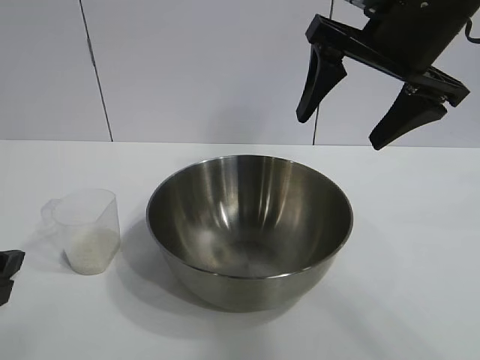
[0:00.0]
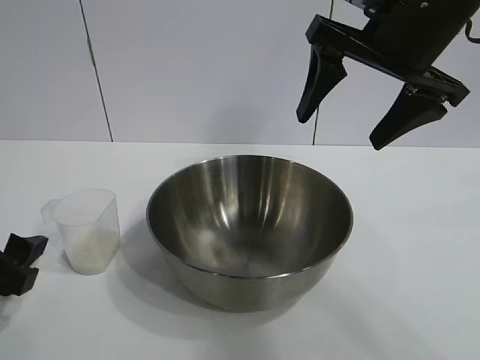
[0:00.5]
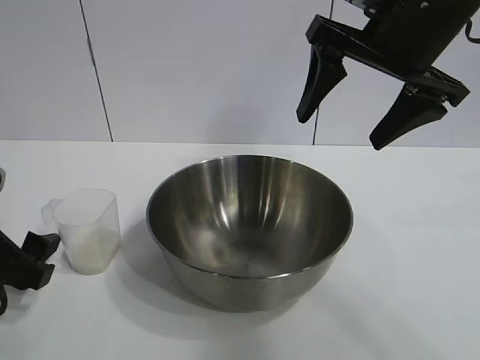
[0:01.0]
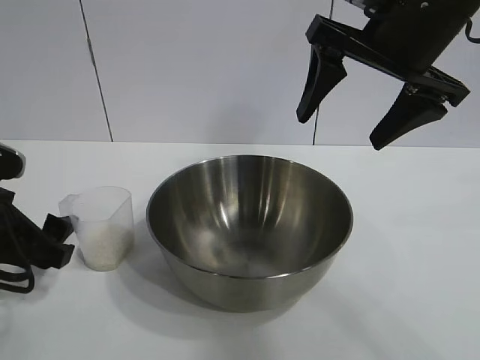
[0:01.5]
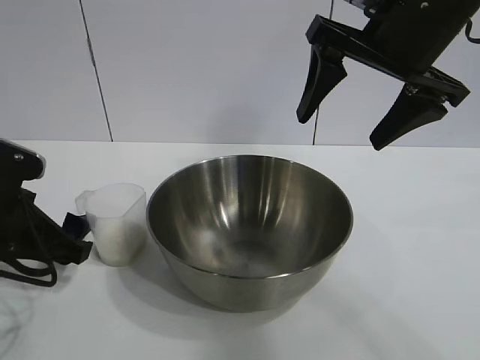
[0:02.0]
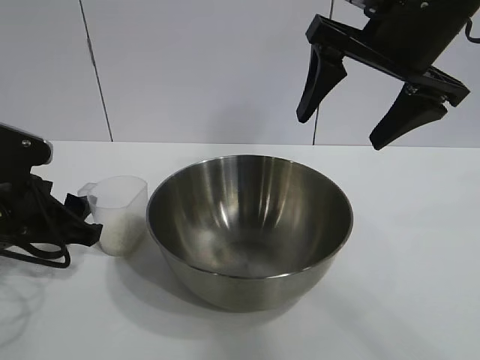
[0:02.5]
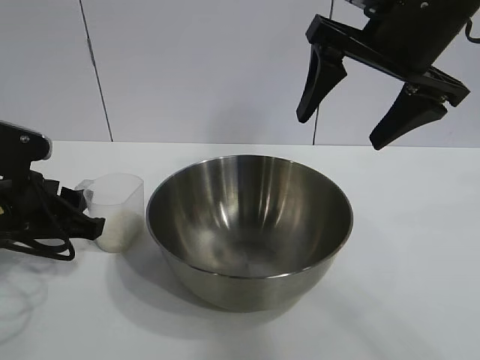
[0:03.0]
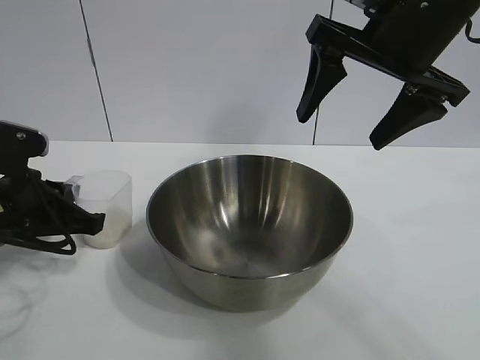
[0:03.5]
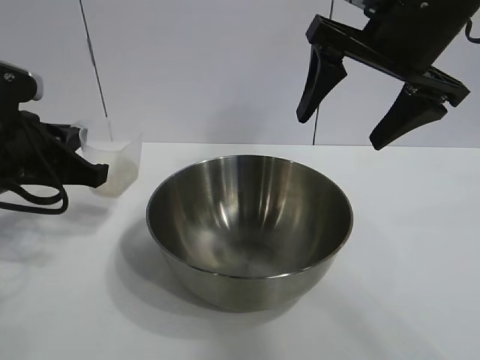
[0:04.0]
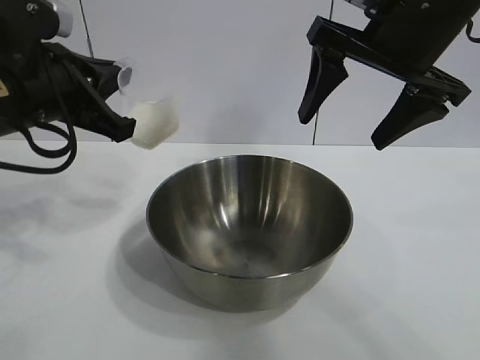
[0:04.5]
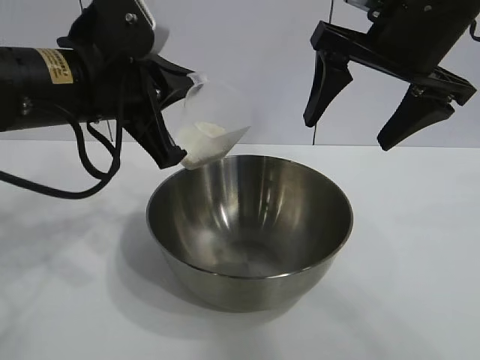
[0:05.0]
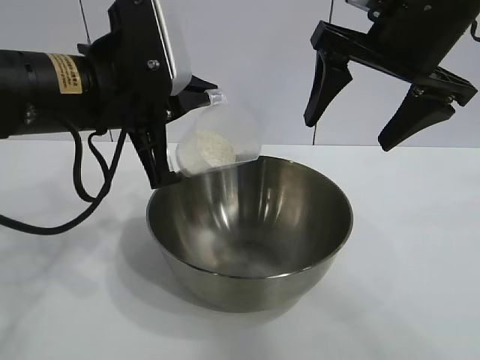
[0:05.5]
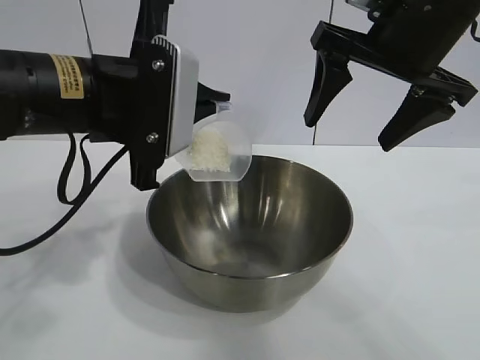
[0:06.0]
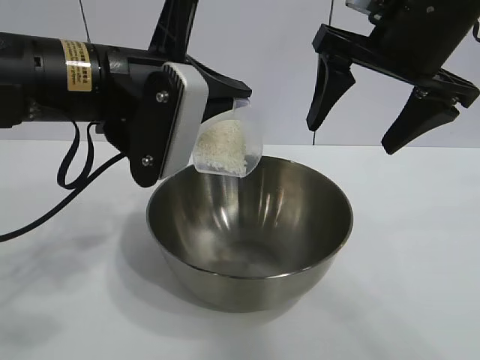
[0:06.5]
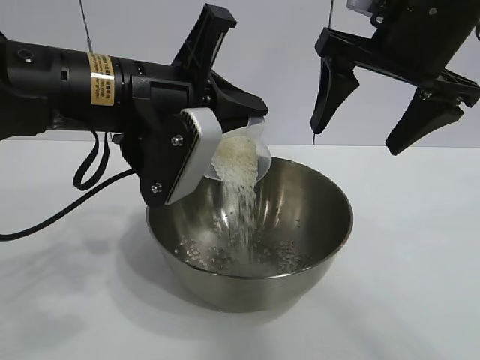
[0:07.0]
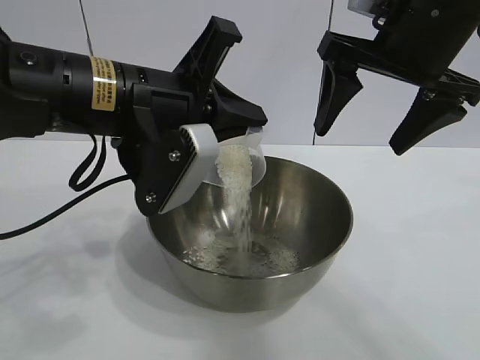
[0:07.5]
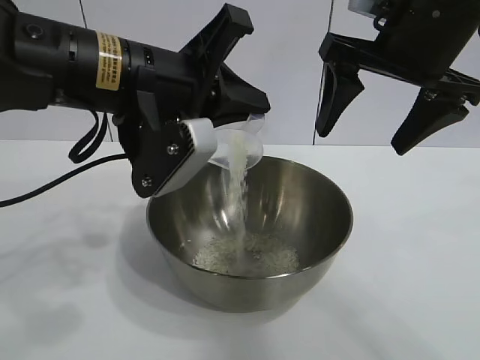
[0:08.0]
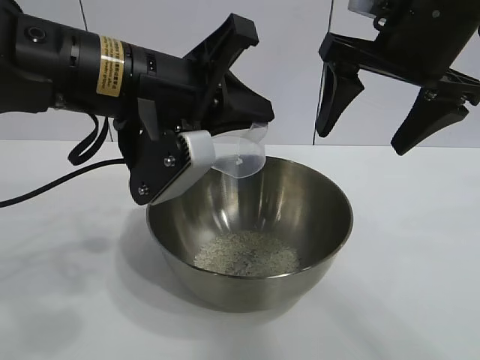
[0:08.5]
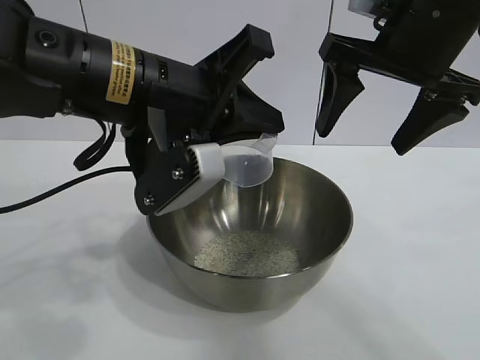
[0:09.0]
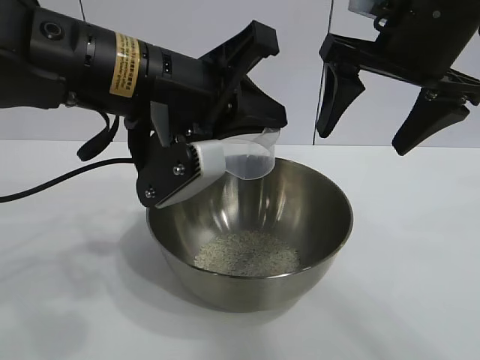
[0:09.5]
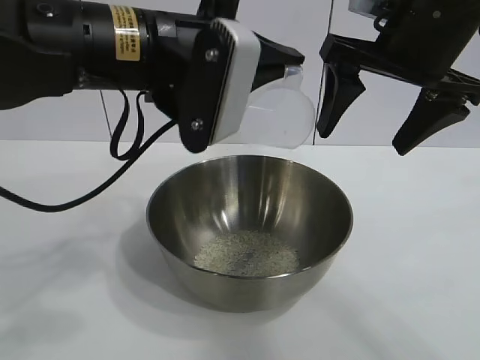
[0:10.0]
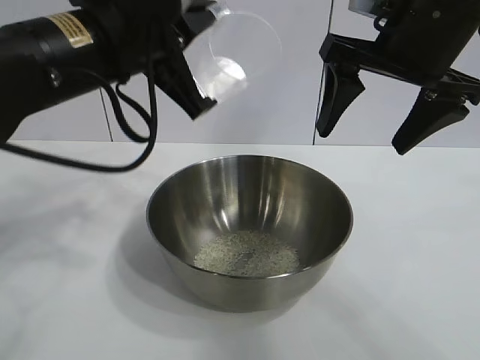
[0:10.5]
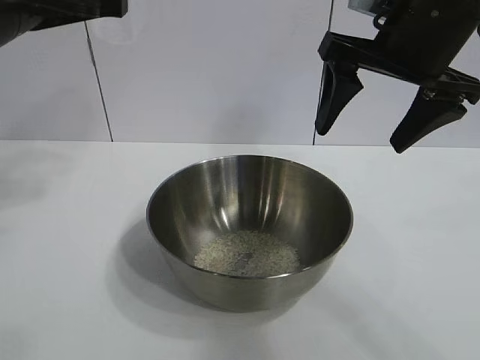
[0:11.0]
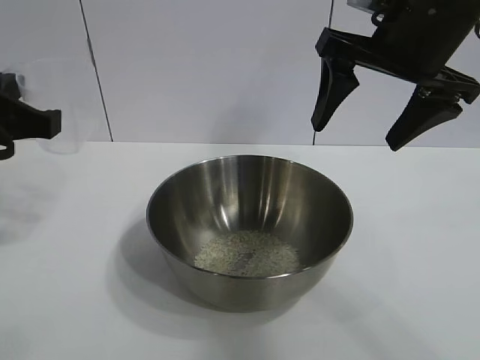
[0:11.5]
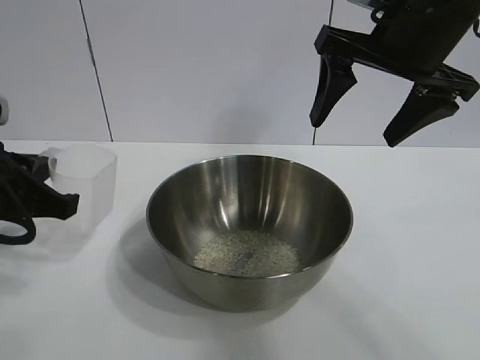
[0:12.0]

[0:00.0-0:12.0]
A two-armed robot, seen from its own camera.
Task of the whole recording: the right gripper grasp the rice container and place it in the center of the table, the left gripper grasp the rice scoop and pour the rice into the rice container.
Step, 0:00.0 to 0:03.0: Grasp the cup with rice in it with left gripper.
Step, 0:03.5 to 0:08.5: Pour the rice from the cup into the bowl with the left gripper.

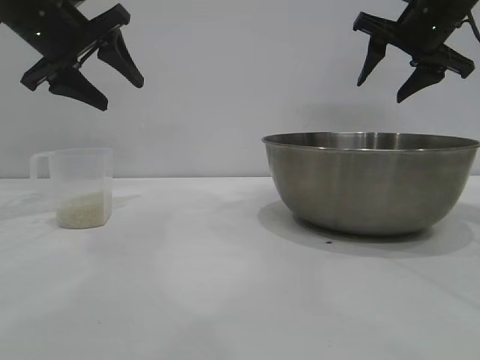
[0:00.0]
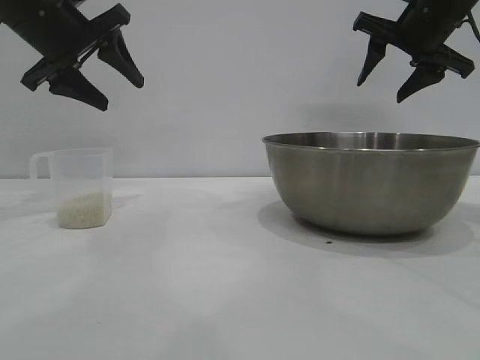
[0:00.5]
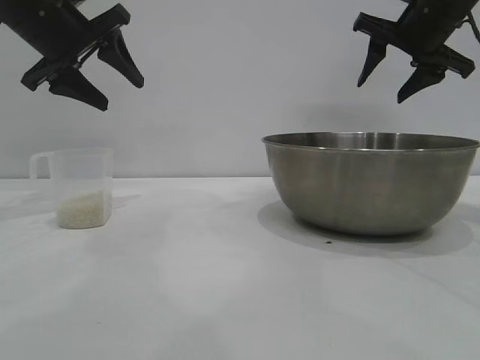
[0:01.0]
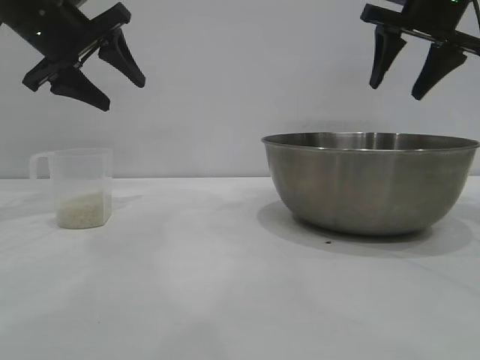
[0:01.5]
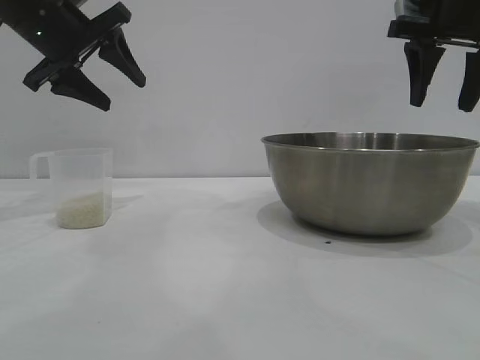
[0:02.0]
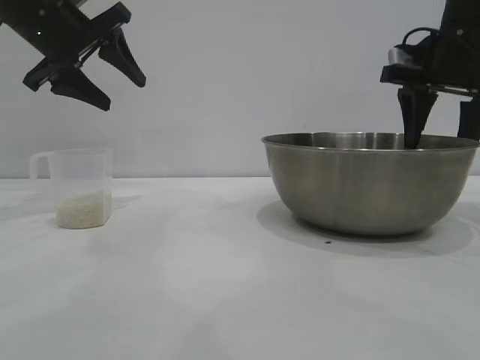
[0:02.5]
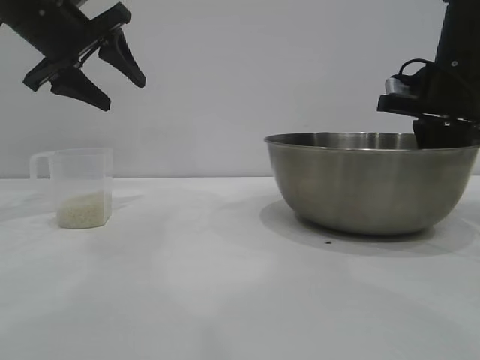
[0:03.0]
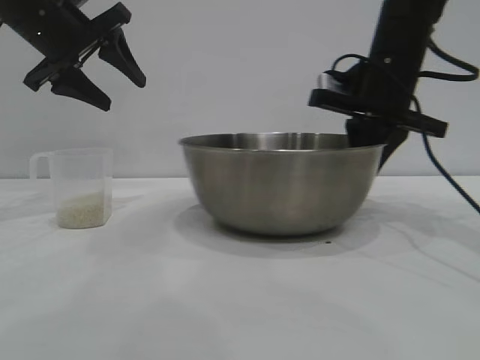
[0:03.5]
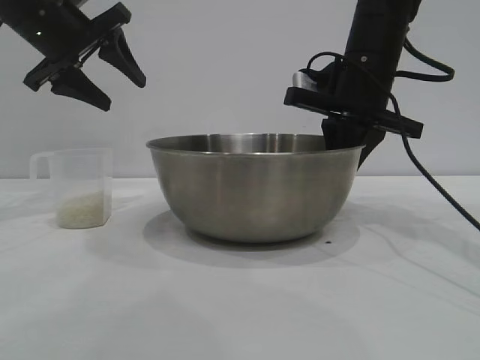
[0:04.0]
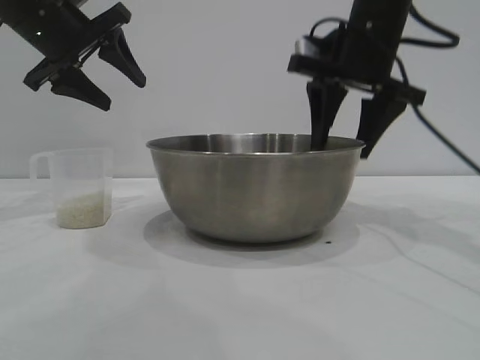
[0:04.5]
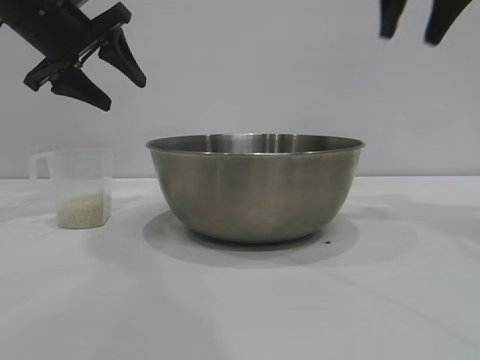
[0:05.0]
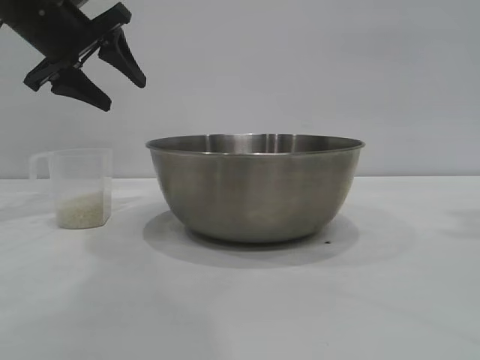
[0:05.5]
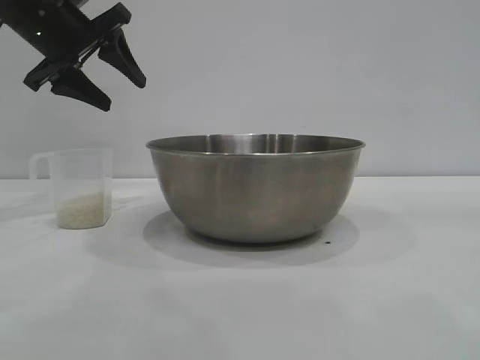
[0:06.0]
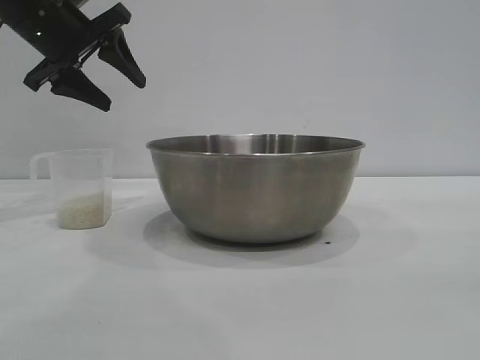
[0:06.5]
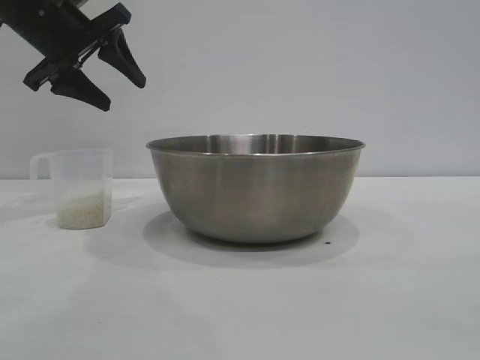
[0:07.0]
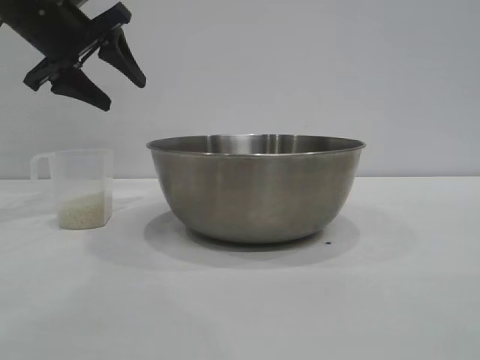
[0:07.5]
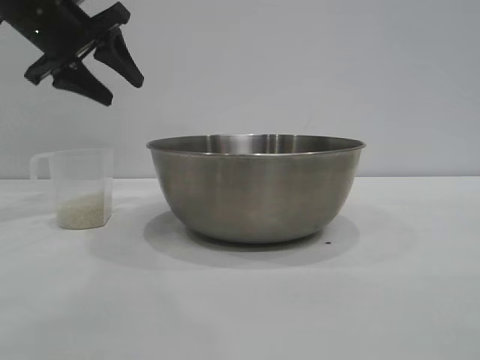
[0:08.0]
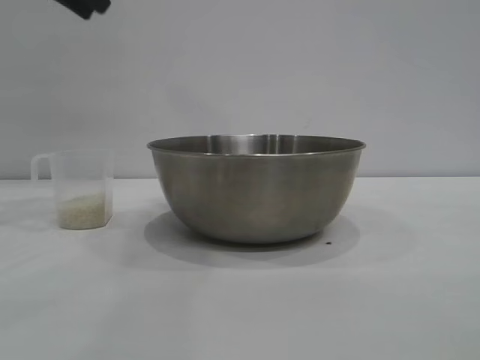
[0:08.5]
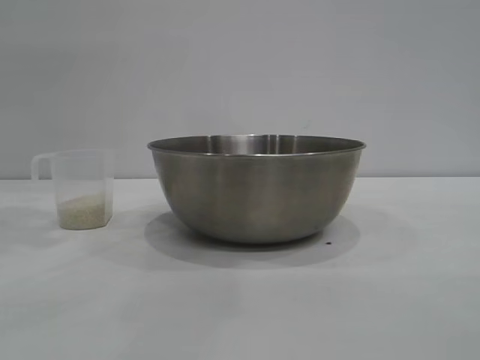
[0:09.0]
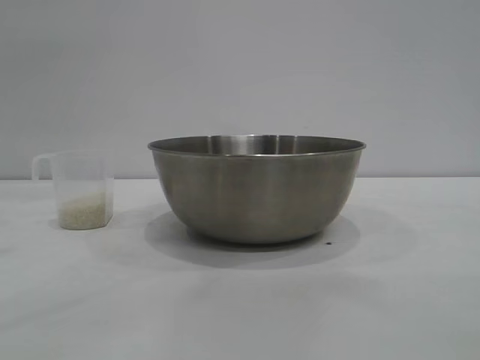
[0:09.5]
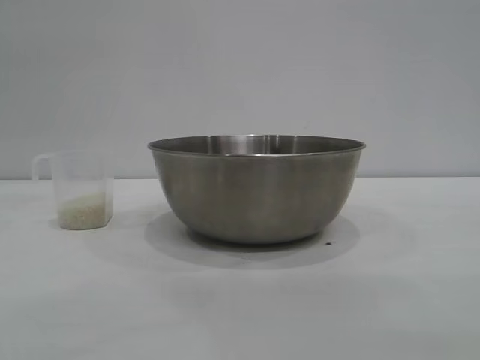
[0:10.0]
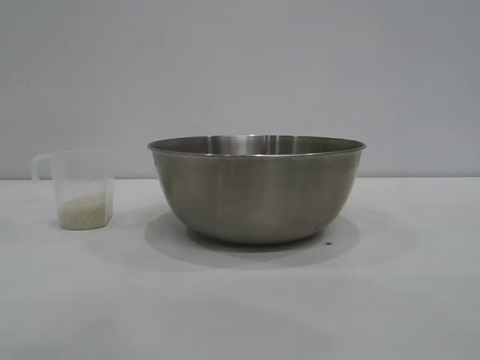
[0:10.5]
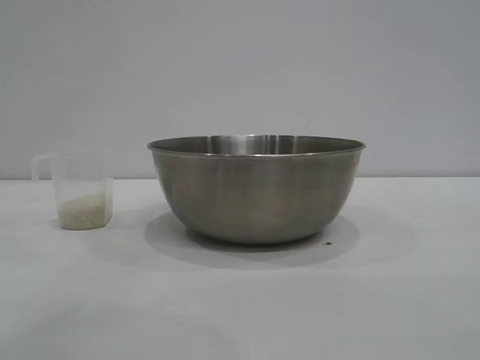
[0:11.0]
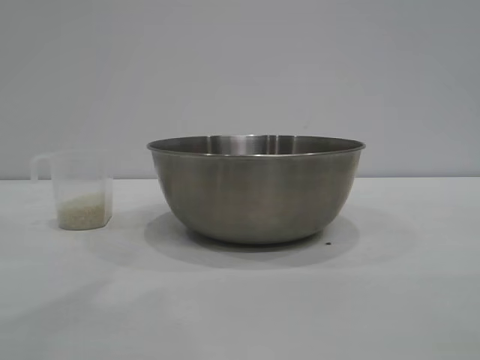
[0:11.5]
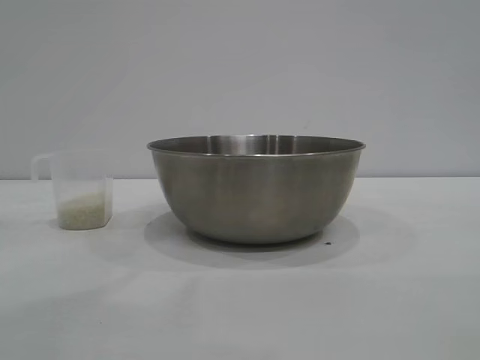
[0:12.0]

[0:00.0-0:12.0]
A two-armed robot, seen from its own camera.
Task of the whole recording: the right gripper grasp the rice container and place it in the center of the table, the left gripper grasp the rice scoop and pour the rice into the rice container.
Step, 0:00.0 to 0:04.5: Move the bowl to the center of view with the right gripper.

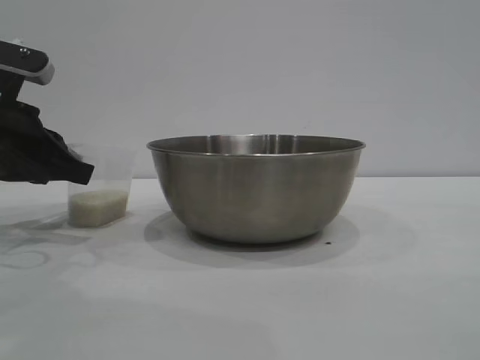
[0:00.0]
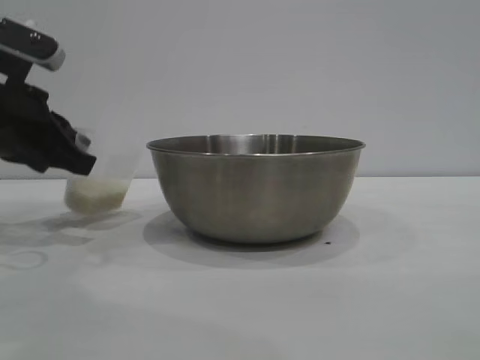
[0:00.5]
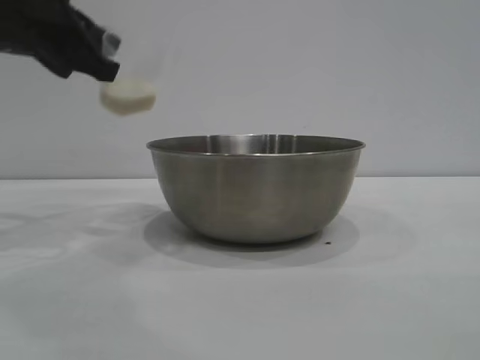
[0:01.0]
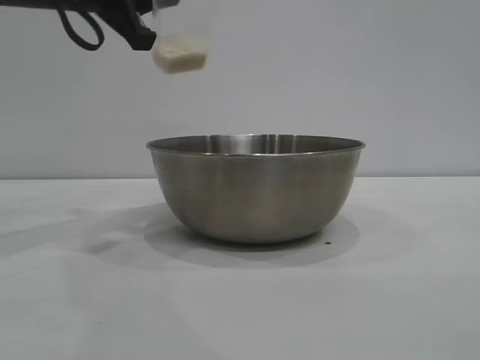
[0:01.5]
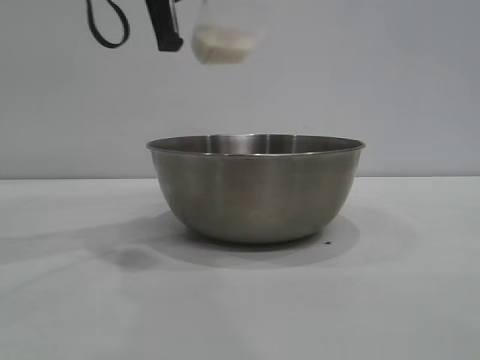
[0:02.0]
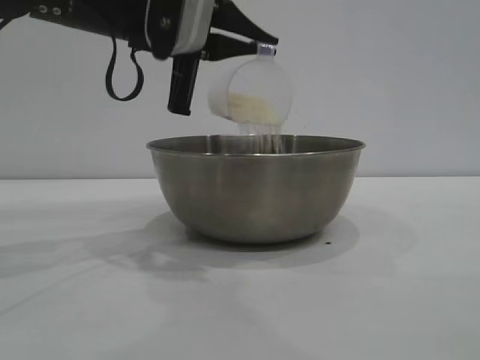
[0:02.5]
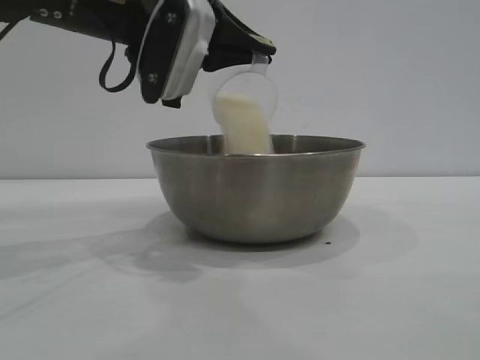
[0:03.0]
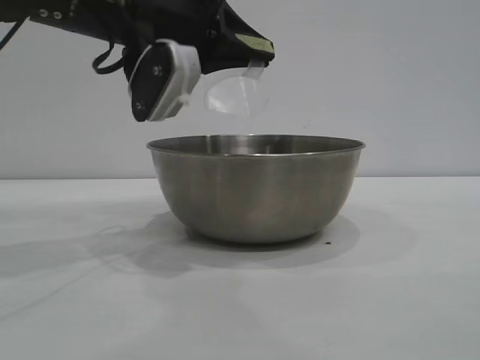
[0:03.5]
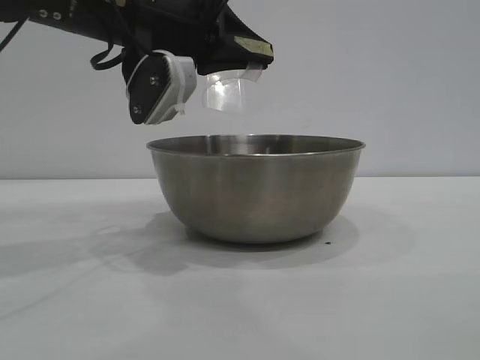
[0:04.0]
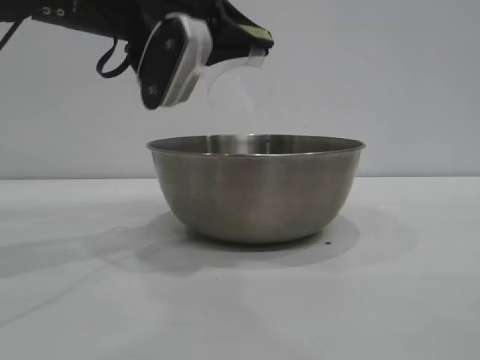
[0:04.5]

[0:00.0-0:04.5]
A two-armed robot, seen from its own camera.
Task of the whole recording: the right gripper grasp the rice container and place it in the center of the table, the left gripper grasp the rice scoop and pour the rice into the rice container.
Step, 0:01.0 to 0:04.0: Pour the rice from the cup into the bowl with the left gripper.
